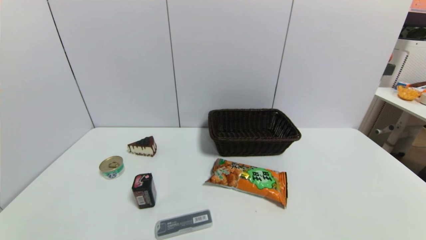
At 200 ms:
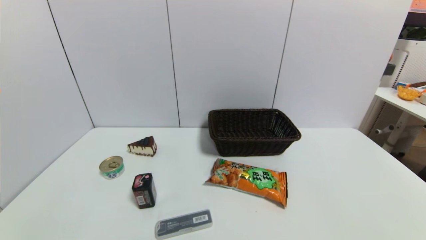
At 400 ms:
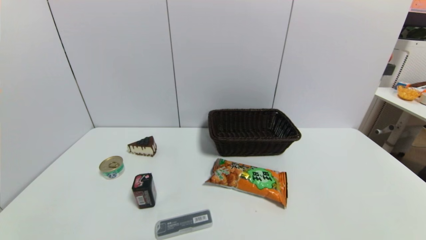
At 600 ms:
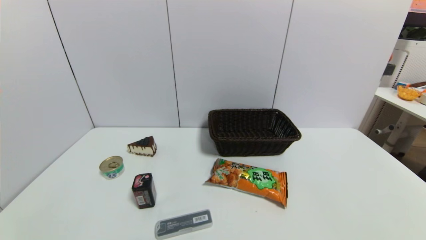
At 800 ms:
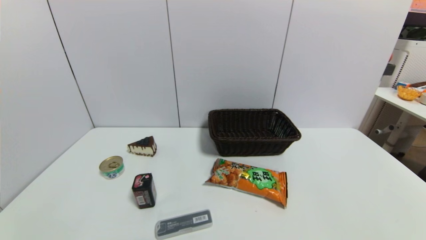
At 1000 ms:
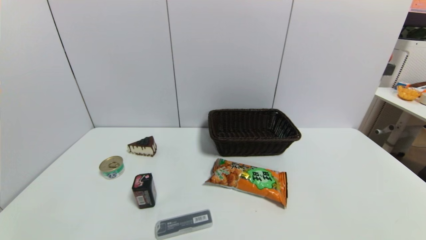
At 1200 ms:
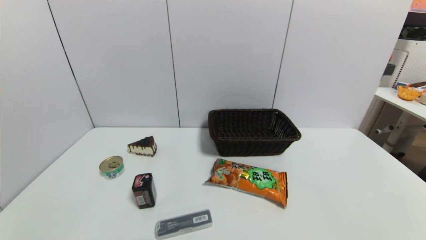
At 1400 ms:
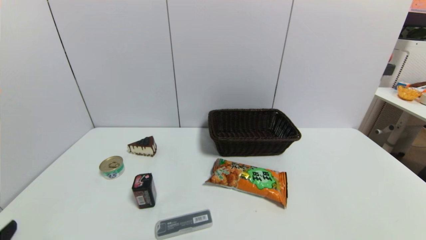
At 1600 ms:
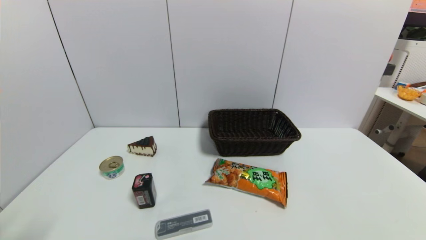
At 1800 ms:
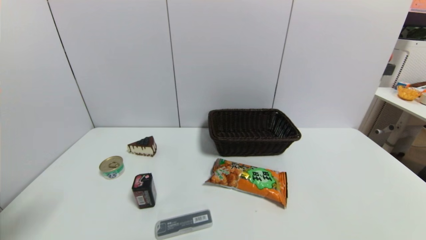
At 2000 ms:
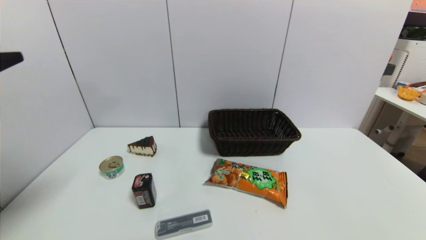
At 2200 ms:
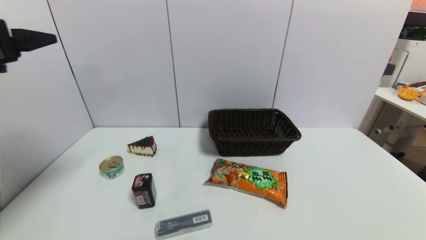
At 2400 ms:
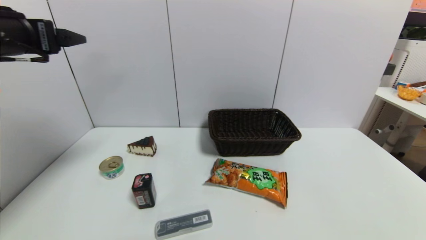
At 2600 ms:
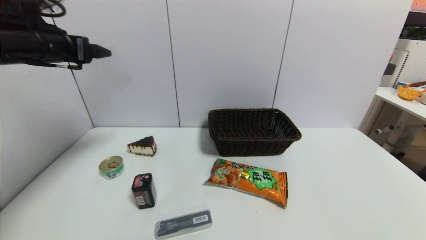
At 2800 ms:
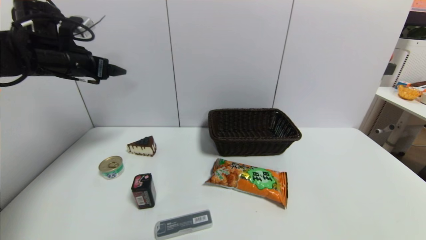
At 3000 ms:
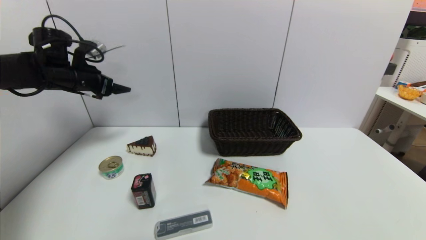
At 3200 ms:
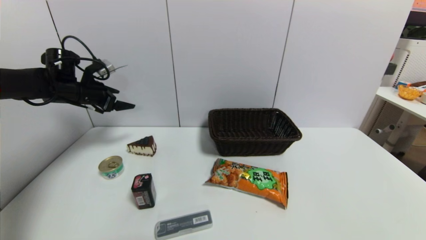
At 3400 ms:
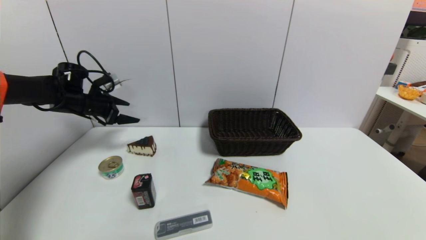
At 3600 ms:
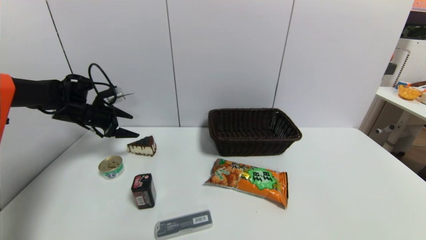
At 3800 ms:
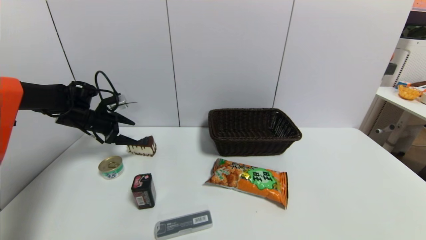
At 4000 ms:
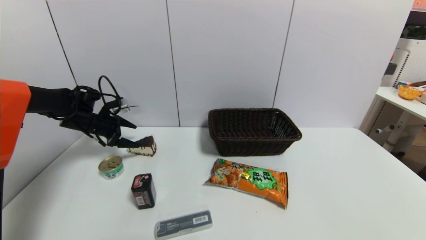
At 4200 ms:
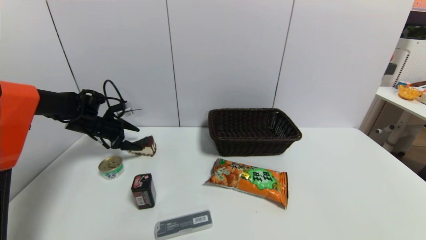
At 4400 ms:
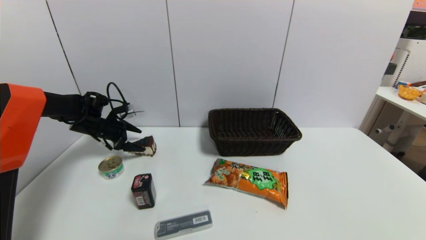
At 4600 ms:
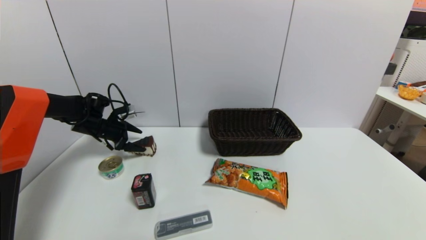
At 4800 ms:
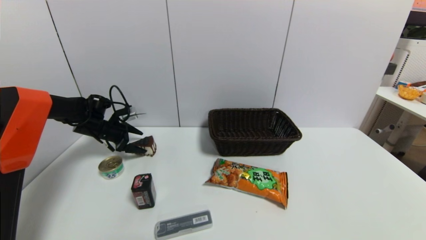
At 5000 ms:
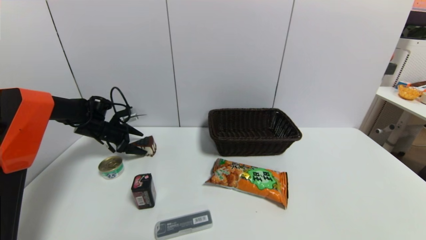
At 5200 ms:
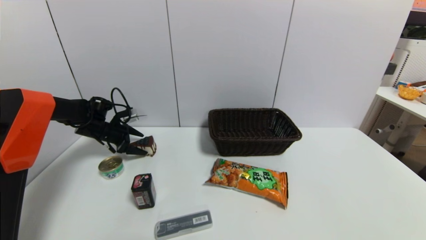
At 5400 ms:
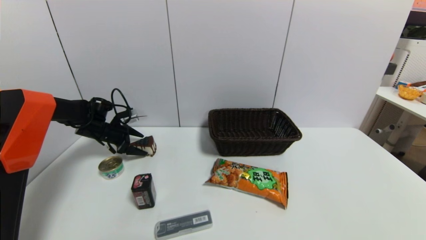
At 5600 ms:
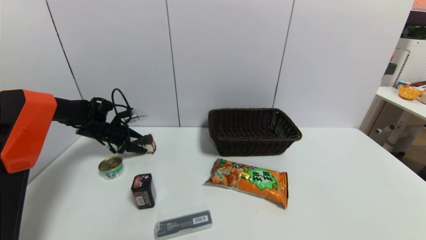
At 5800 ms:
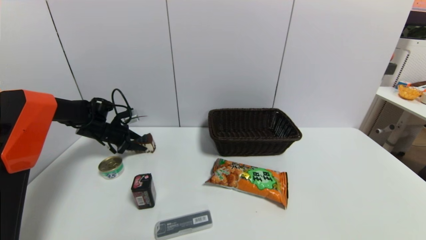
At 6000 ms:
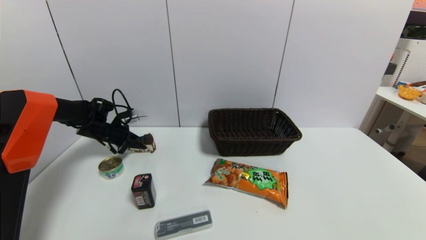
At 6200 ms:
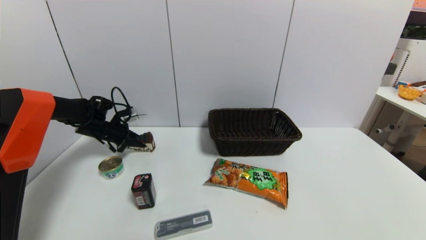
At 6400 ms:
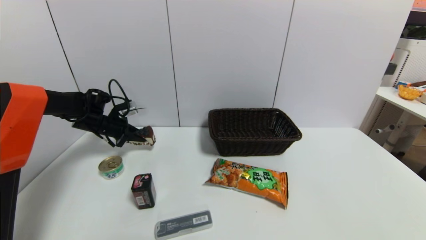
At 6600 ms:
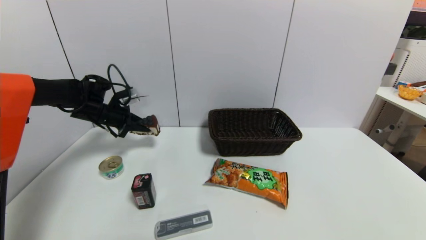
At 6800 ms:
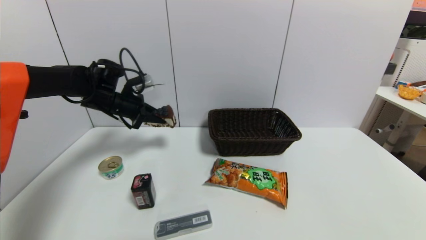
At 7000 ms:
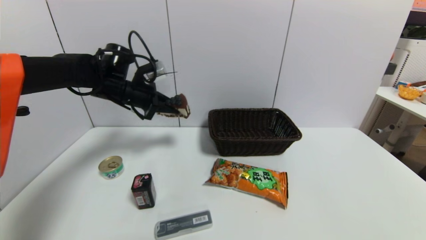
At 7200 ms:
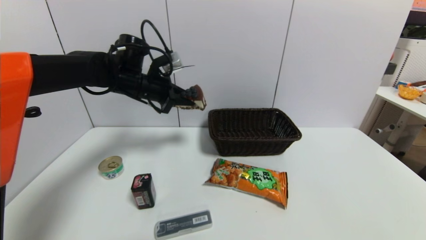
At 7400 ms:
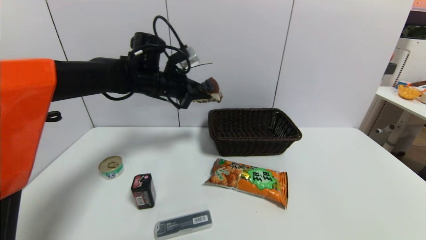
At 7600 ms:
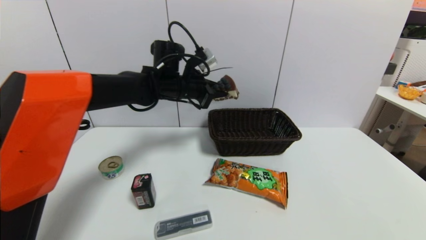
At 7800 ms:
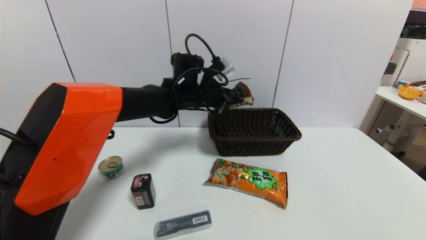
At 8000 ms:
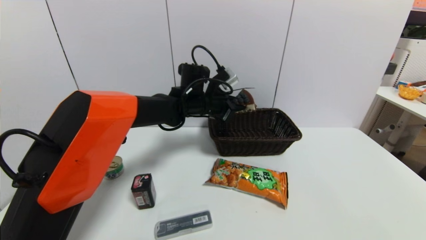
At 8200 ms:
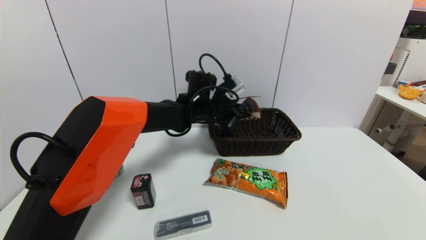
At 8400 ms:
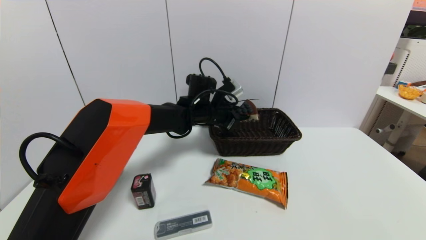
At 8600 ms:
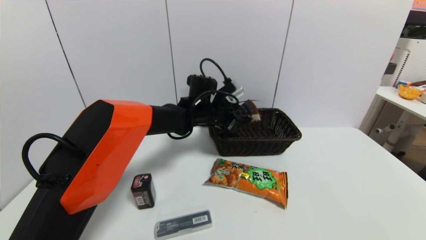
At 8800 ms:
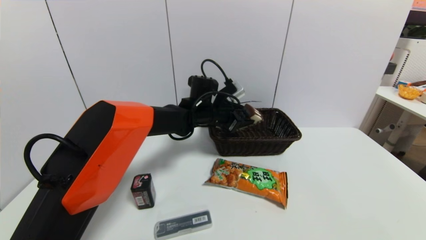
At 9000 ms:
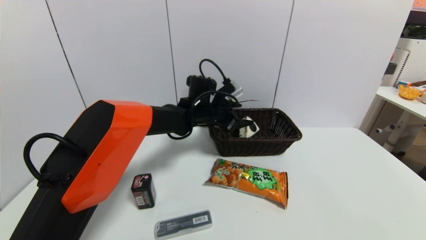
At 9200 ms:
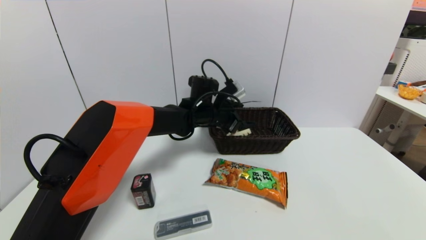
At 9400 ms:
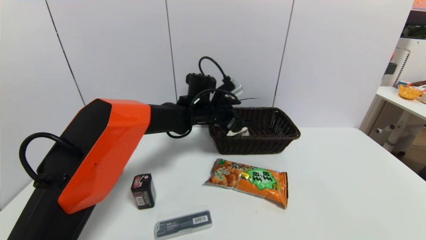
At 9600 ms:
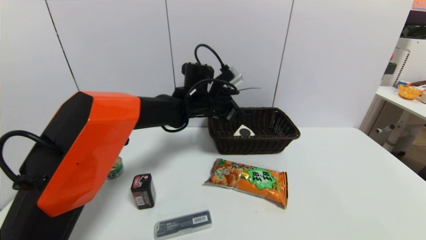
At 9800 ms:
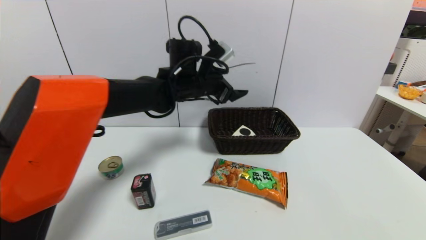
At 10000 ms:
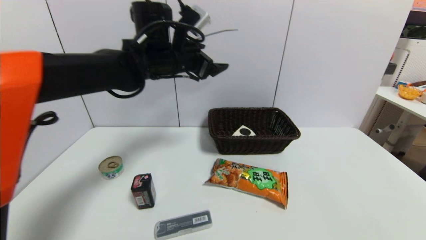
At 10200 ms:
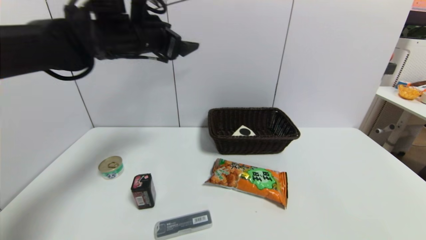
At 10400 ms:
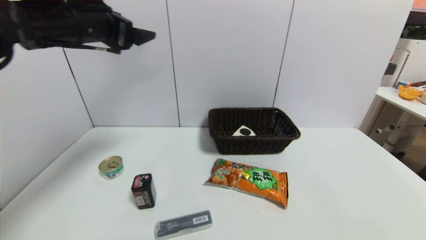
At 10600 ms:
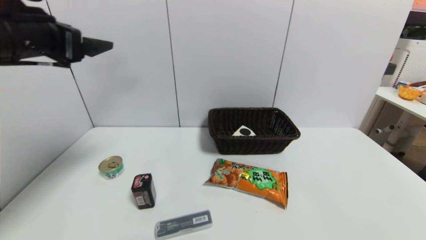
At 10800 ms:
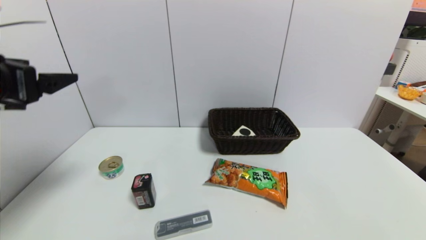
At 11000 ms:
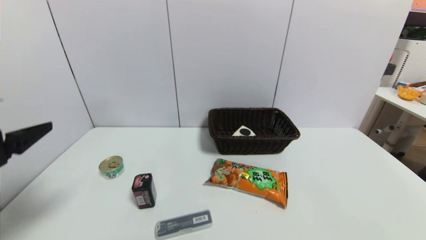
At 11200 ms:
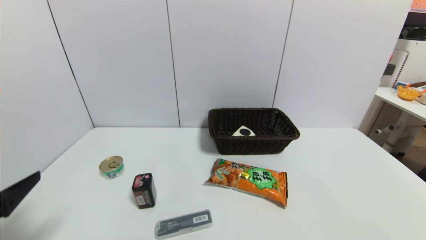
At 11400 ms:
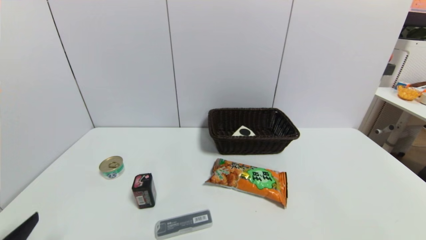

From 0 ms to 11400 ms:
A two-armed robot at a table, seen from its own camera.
Task of the whole recording: use a gripper to pick the target object and place on the brown basket.
Step, from 0 ms to 6000 ms: Grasp the chocolate cake with the left gripper.
Step, from 6200 ms to 9400 ms: Place the chocolate cake into the basket with the left gripper.
From 1400 ms to 2800 ms: The left gripper goes roughly 40 cm forward.
From 2800 ms to 4200 ms: The left gripper heads downward, covering some 20 cm.
From 4200 ms to 5600 ms: The left gripper closes.
From 5600 ms to 7200 ms: The left gripper shifts about 25 cm to the right and upward, and closes its fingers.
From 7200 ms to 8600 ms: The left gripper shifts about 20 cm to the right and downward.
From 8600 ms to 10000 ms: The left gripper heads upward and to the left, covering some 15 cm, and opens.
From 10000 ms to 11400 ms: The left gripper goes about 40 cm backward, to the left and downward.

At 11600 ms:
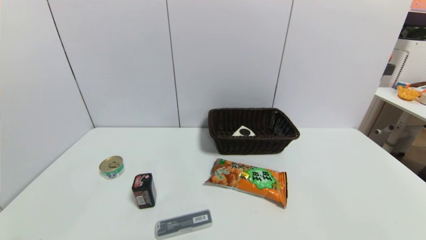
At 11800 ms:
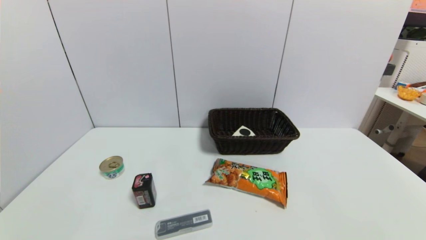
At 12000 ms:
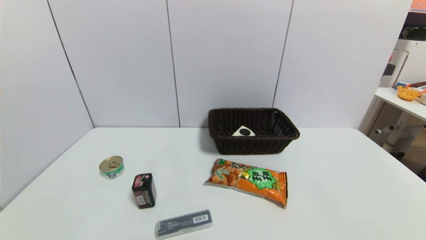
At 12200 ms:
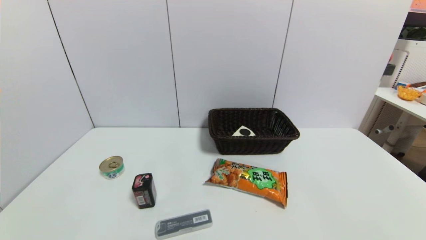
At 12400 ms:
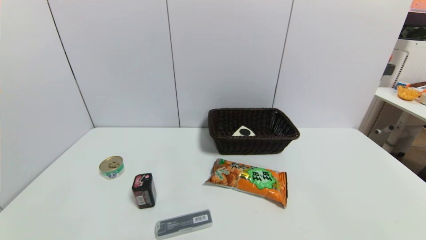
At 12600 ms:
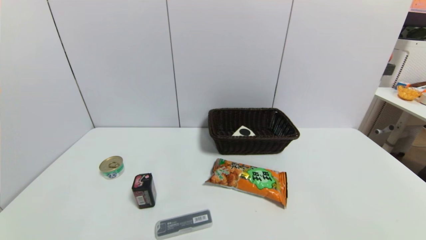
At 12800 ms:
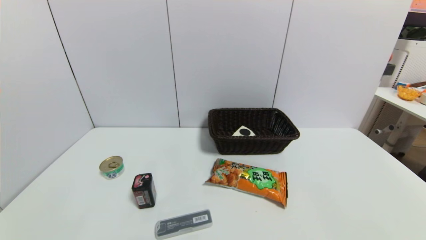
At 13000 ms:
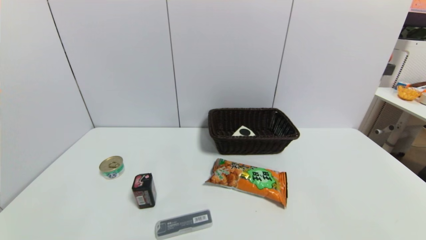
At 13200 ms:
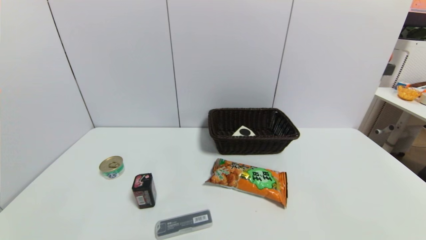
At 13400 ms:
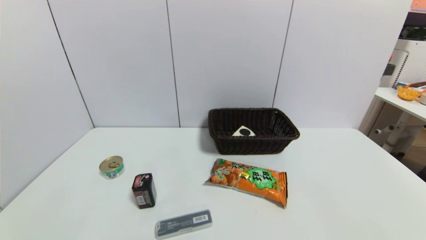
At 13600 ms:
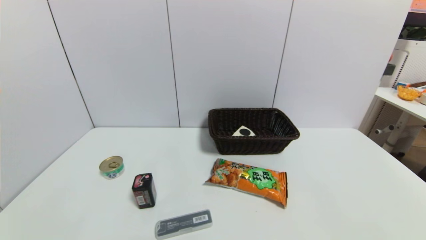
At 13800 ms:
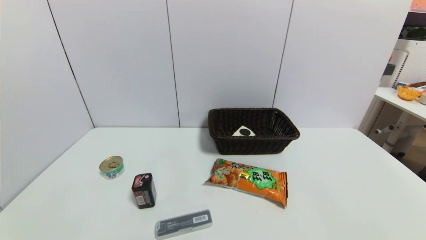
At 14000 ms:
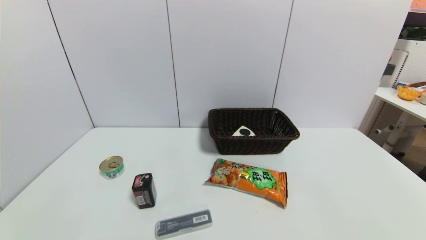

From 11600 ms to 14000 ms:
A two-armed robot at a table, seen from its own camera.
Task of the whole recording: use a gripper to pick the target object and place on the brown basket.
From 12800 ms to 14000 ms: Both grippers stay about where they are.
